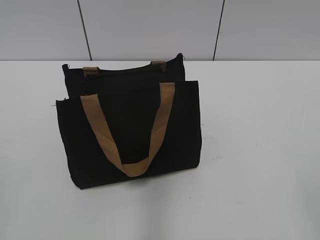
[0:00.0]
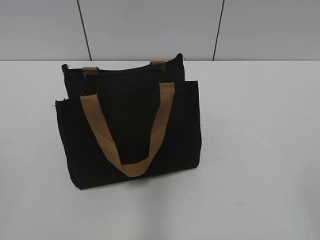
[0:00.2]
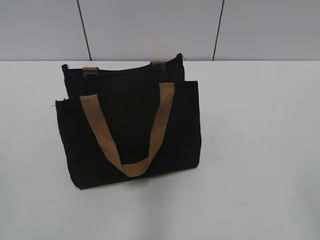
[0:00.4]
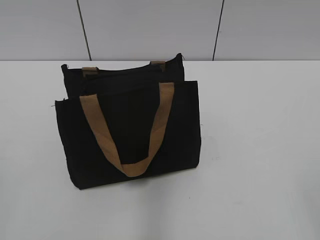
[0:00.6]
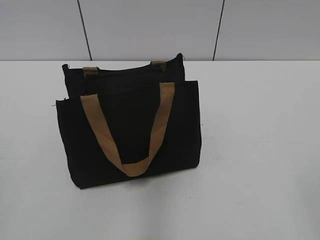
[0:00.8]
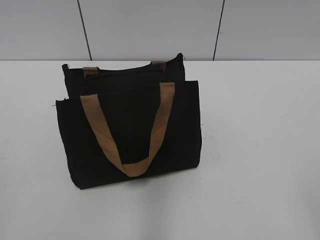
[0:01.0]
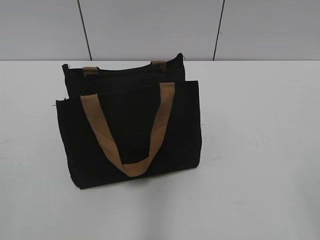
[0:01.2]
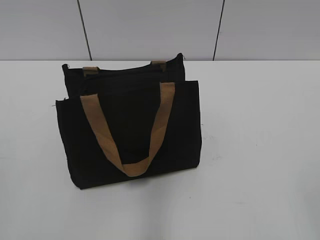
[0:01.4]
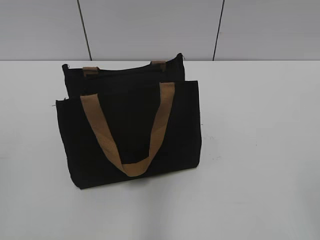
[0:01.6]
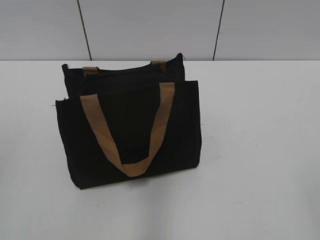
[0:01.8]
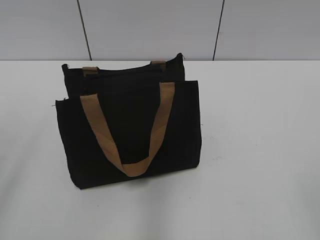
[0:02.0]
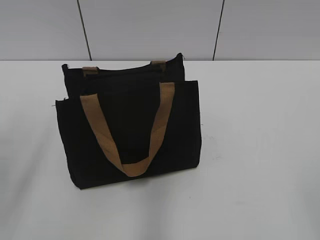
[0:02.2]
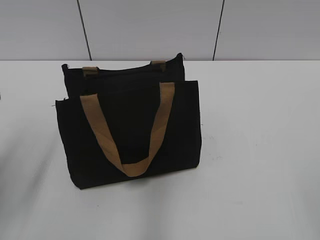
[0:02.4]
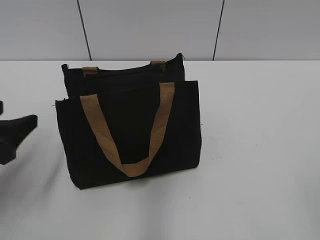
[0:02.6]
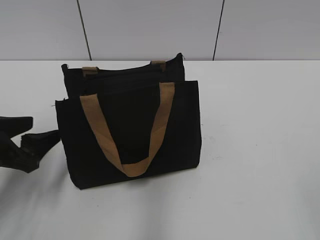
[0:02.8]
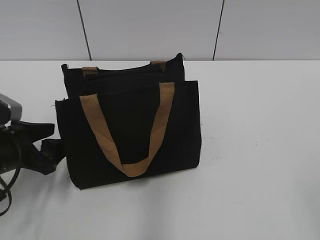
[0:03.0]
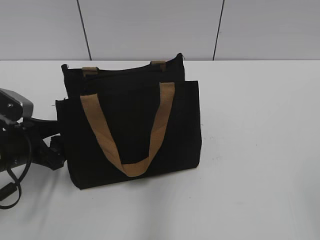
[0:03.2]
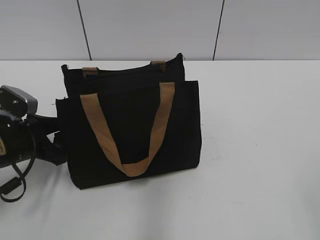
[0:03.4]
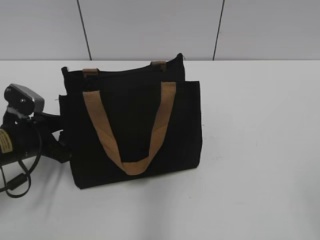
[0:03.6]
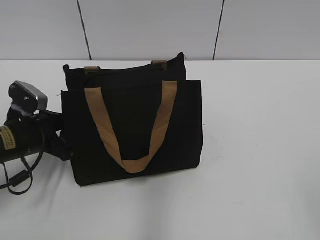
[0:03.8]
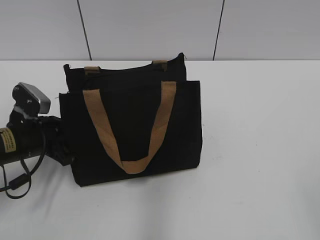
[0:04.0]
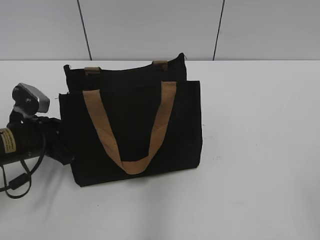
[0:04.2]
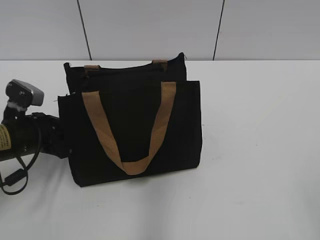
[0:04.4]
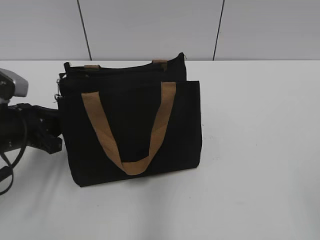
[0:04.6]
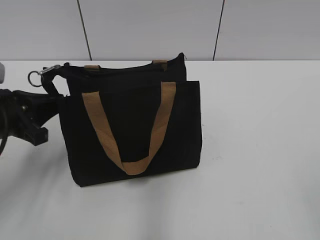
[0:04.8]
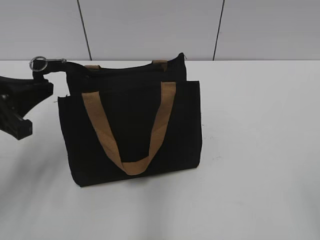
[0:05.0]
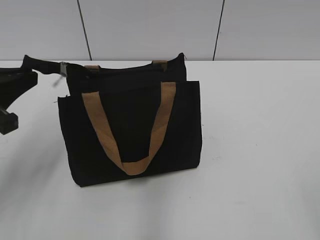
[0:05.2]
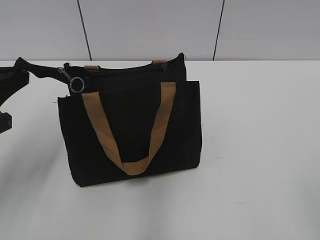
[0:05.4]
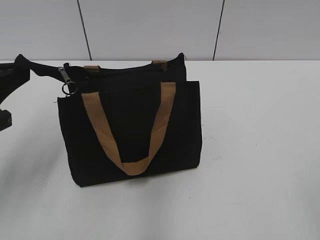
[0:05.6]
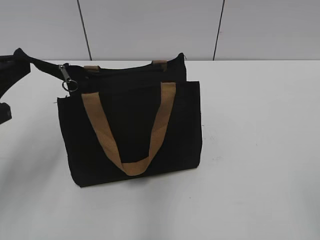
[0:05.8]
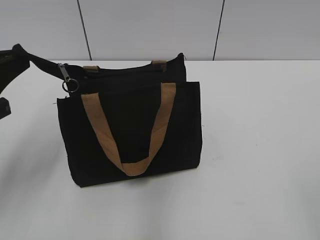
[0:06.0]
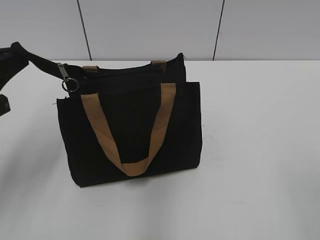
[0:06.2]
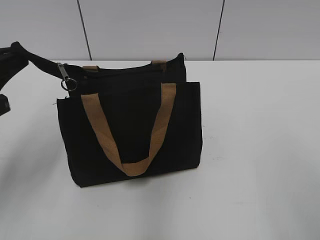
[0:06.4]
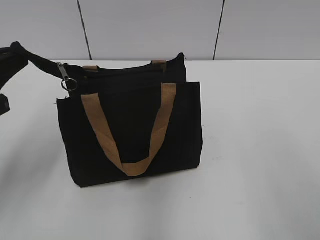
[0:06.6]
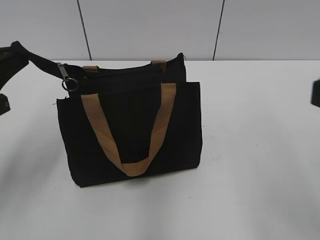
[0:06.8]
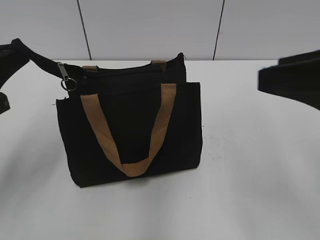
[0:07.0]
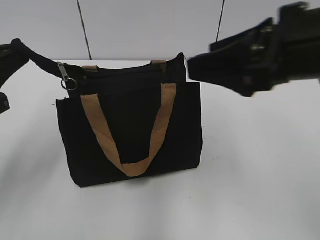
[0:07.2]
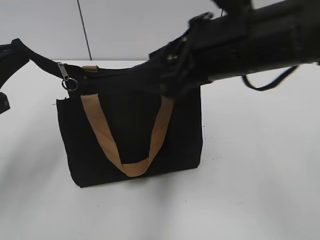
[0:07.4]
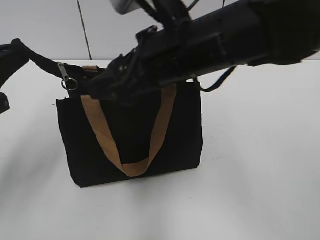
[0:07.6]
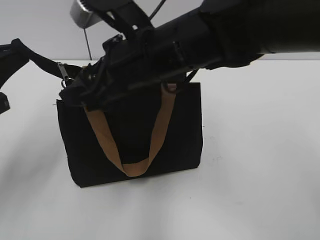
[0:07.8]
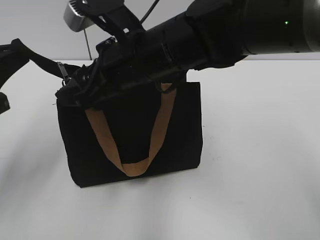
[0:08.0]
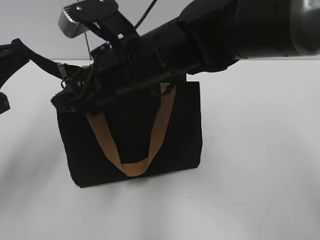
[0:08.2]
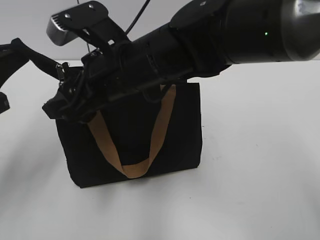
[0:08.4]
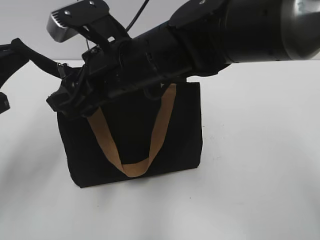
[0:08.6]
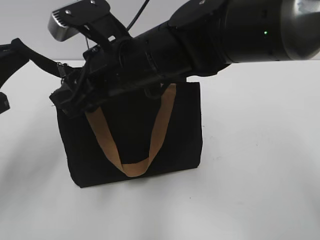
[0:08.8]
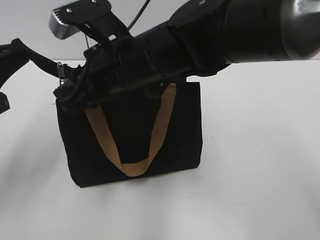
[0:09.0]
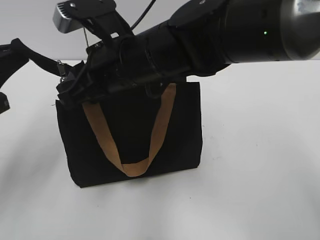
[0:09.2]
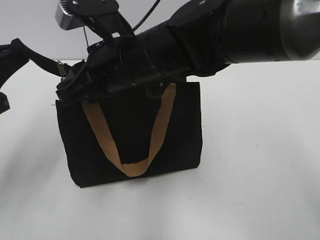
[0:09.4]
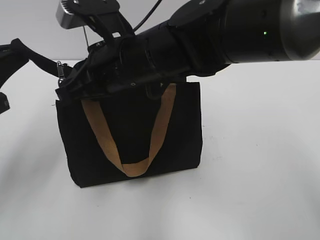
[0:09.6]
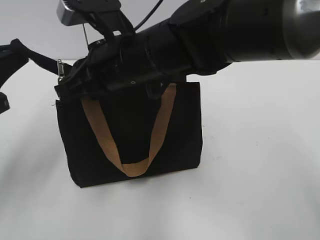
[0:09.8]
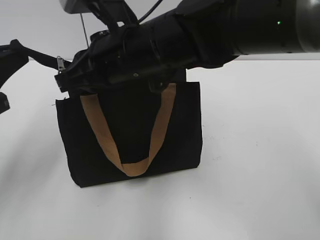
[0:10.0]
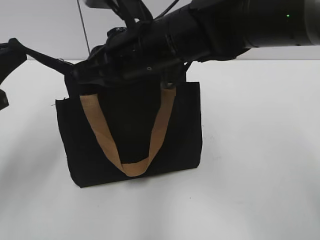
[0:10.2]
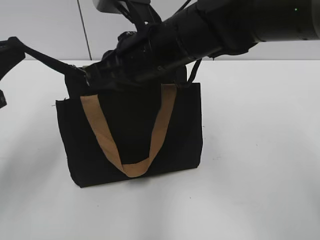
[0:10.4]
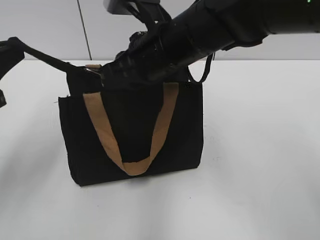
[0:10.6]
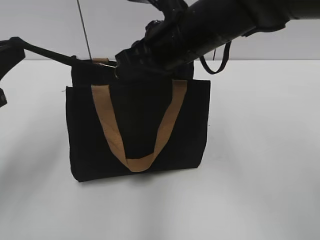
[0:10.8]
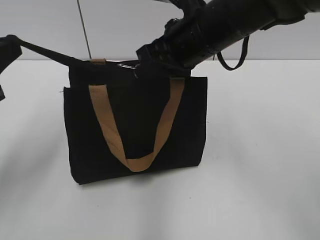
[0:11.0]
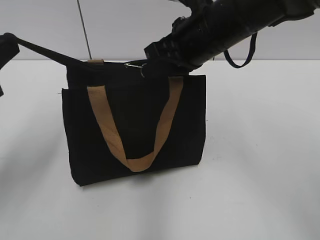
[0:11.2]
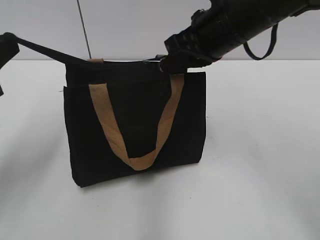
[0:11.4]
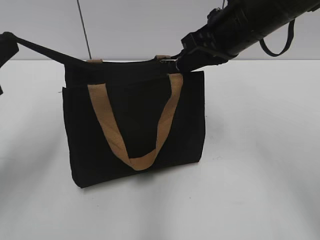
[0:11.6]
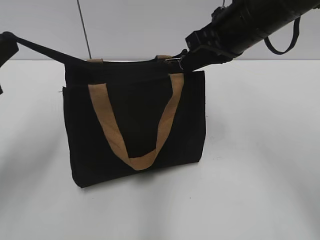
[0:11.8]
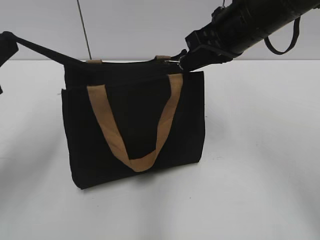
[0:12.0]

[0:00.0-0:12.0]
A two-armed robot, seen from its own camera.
0:01.6 to 0:03.0: The left gripper moves forward and downward, approximately 30 cm, and opens.
0:03.0 to 0:04.4: The left gripper shifts by roughly 5 cm, and closes up.
0:04.4 to 0:06.0: The left gripper shifts about 15 cm upward and backward.
0:06.0 to 0:07.6: The right gripper travels forward and to the left by approximately 35 cm.
0:07.6 to 0:09.0: The right gripper goes about 5 cm to the left, and closes up.
0:09.0 to 0:10.4: There are only small adjustments of the grippers.
0:10.4 to 0:12.0: The right gripper shifts approximately 10 cm to the right.

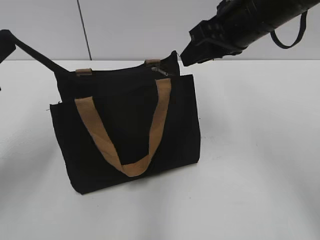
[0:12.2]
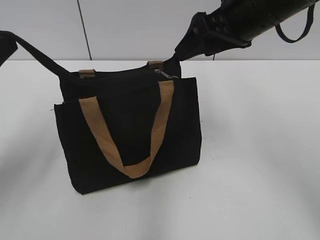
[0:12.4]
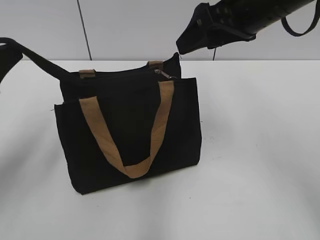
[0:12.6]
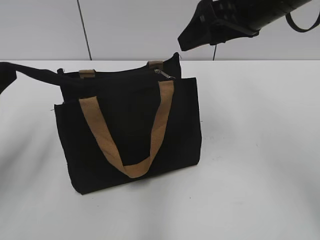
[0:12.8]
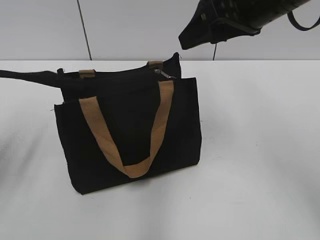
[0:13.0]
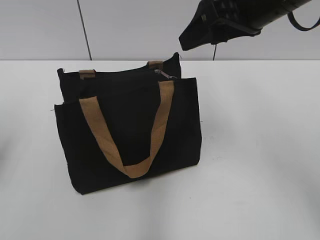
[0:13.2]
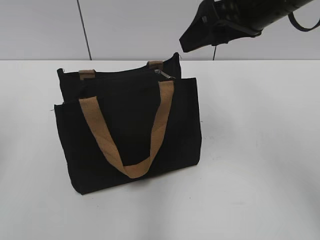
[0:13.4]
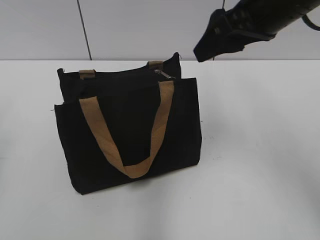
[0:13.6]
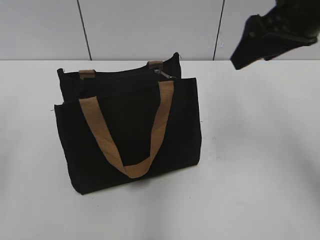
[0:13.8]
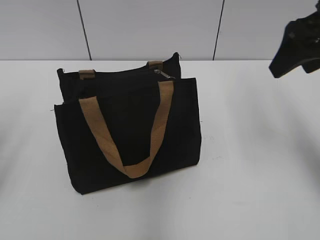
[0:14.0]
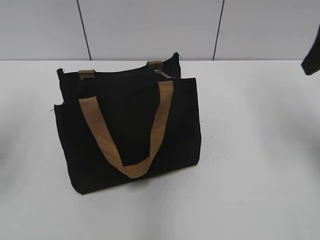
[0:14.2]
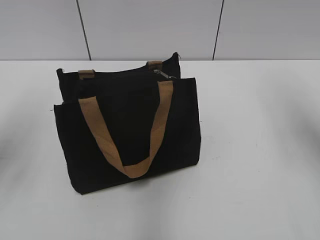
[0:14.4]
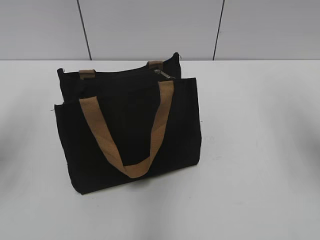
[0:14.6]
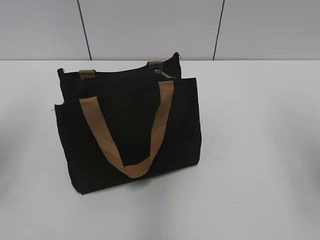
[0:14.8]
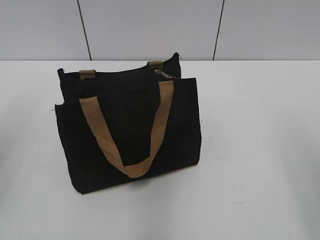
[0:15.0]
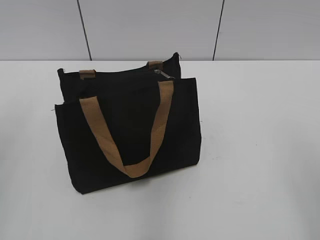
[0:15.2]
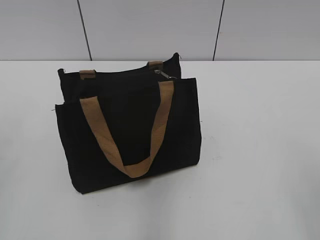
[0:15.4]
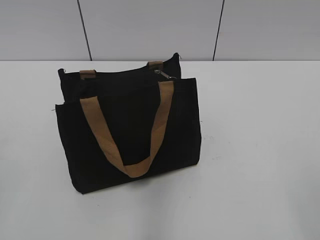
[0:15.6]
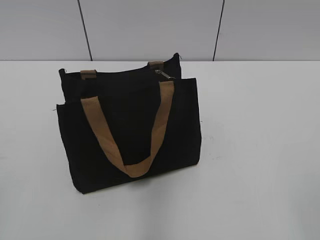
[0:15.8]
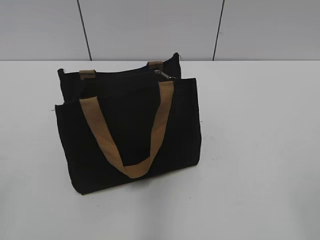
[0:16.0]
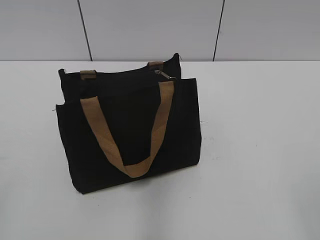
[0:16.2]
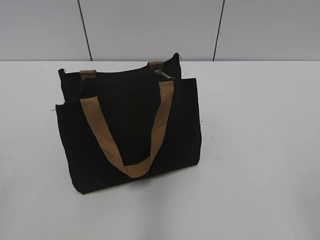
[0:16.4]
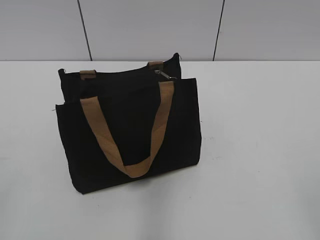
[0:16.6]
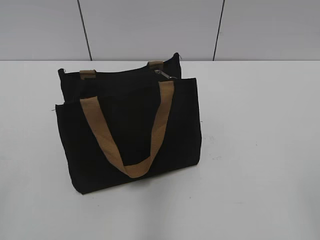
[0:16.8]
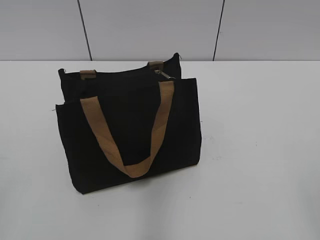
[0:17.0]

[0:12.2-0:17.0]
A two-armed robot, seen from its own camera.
Step, 0:12.2 to 0:13.0: Grab the zipper with your left hand.
0:12.2 to 0:13.8: The right gripper shifts by some 5 cm, and opens up. Meanwhile the left gripper travels to the left by about 10 cm, and opens its fingers.
0:13.8 to 0:15.4: The right gripper travels backward by roughly 25 cm.
